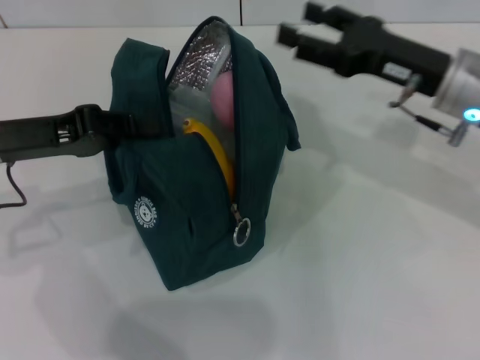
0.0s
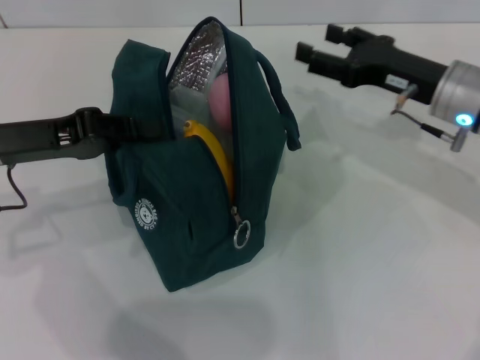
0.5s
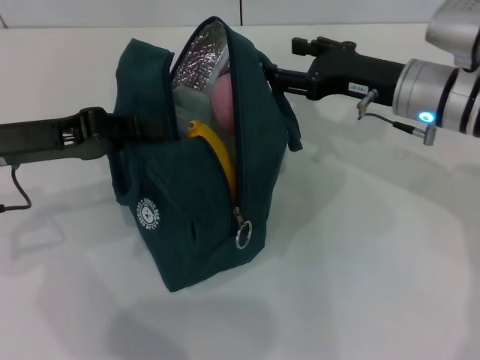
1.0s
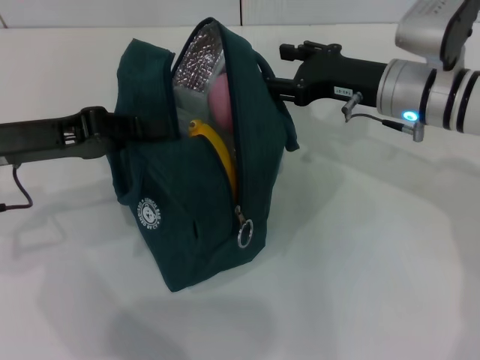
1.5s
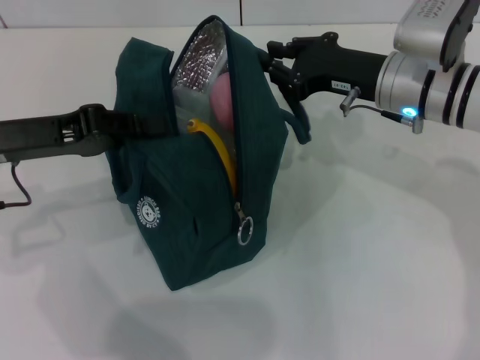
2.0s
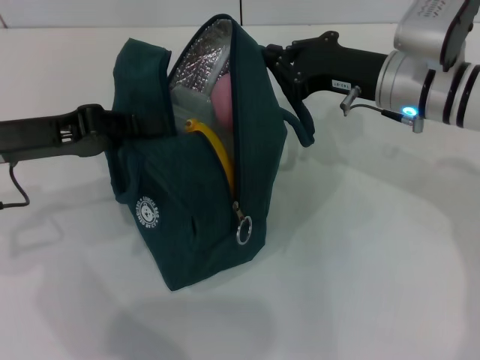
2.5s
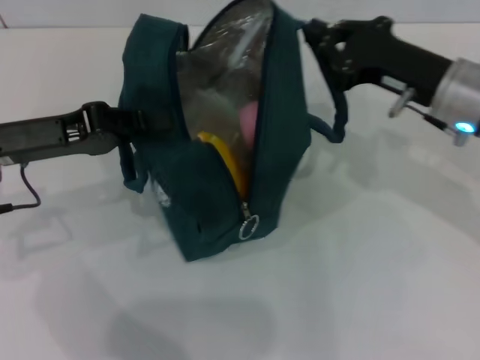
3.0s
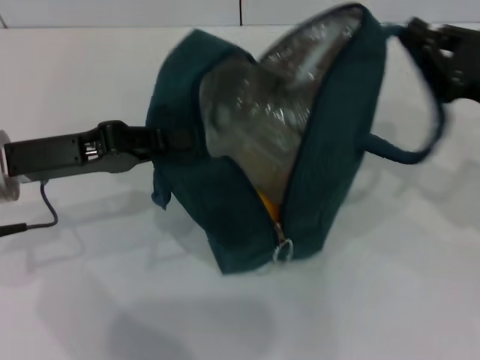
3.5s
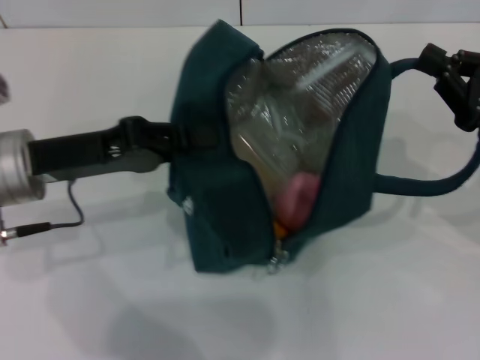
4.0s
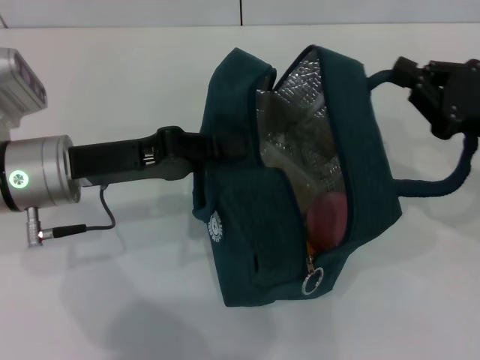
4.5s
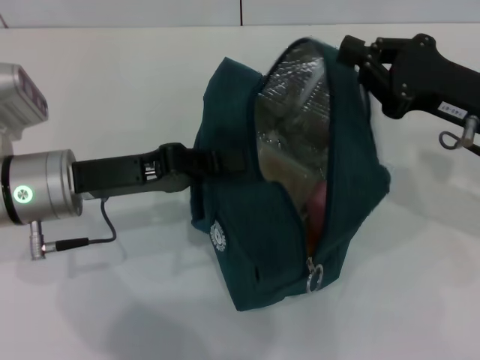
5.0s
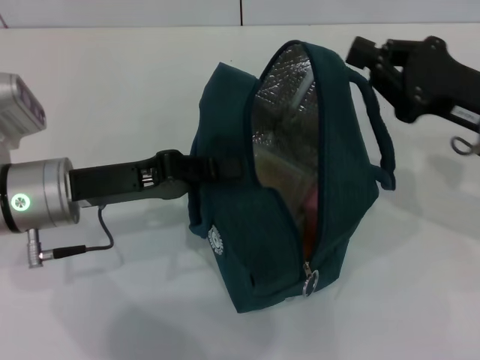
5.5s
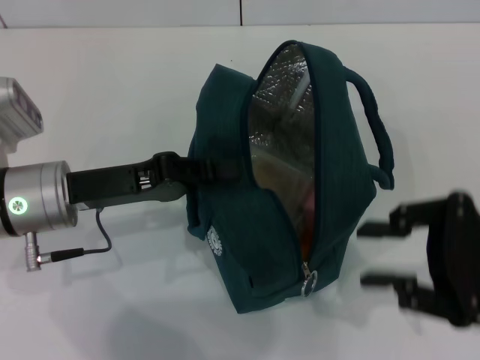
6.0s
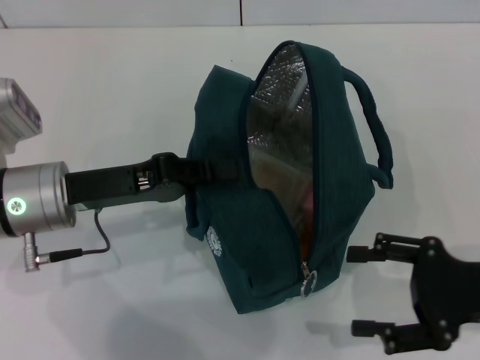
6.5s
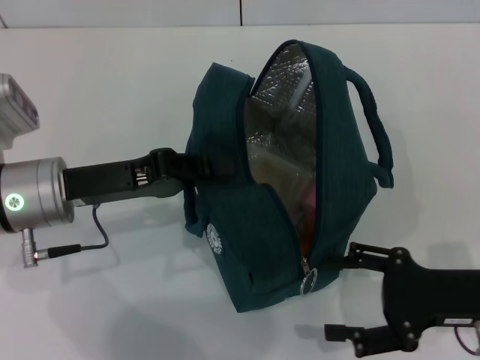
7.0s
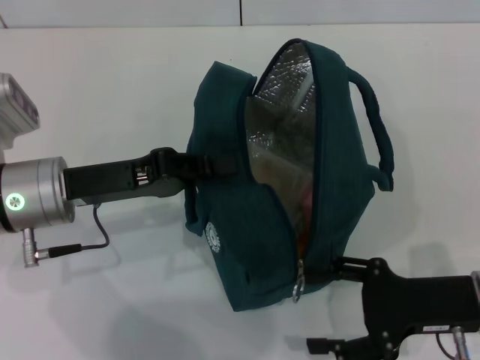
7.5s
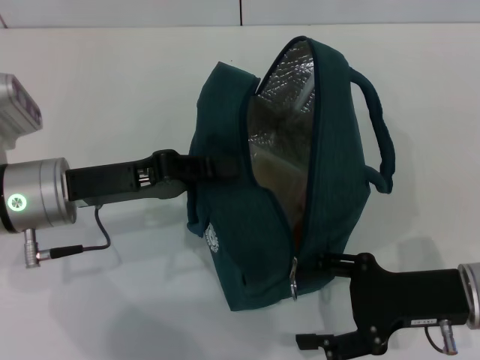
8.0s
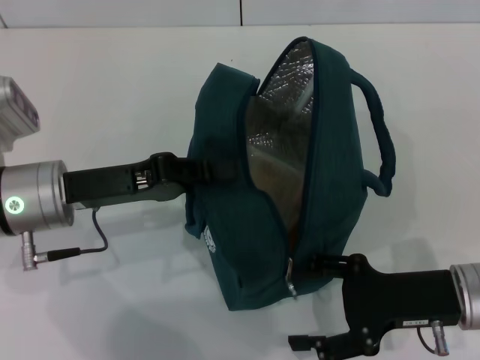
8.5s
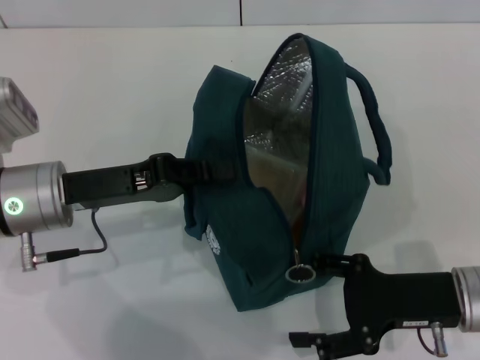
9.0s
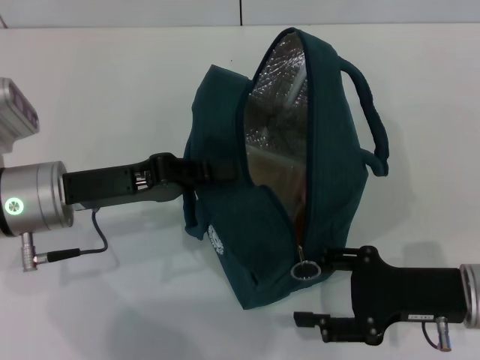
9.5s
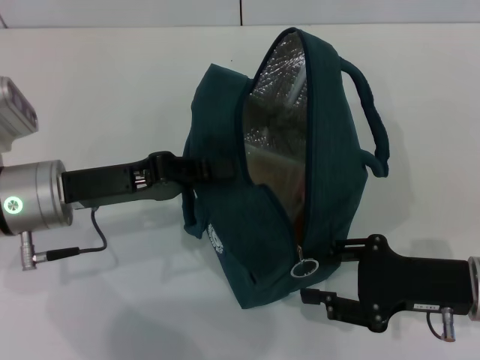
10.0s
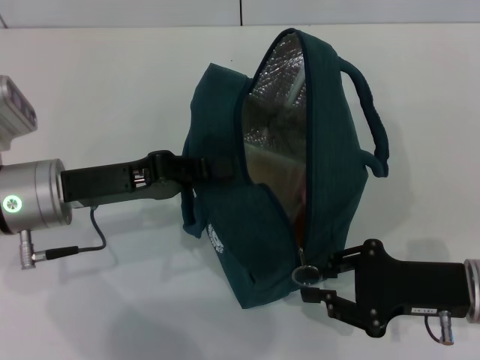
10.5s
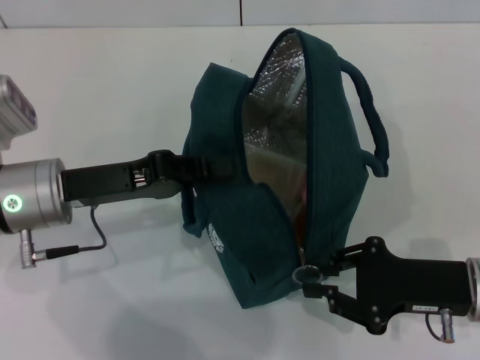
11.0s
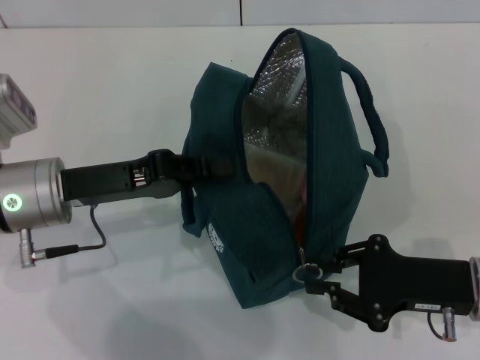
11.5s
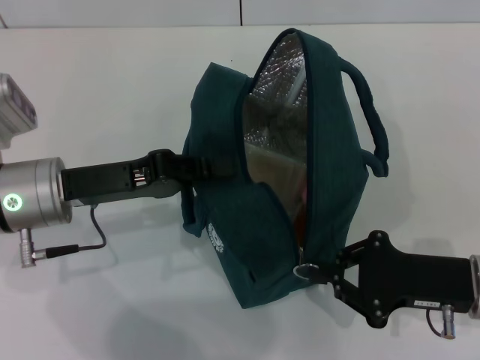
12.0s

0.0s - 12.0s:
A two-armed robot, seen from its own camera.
Step, 0.0s - 5.0s: Hold the lunch bag with your right hand.
0.0s - 2.0s: The right gripper shifts by roughly 5 cm, and closes its fingers.
2.0s - 4.0s: The right gripper travels to the right and backward by approximately 15 cm, and closes up.
4.0s - 6.0s: The right gripper moves backward, some 5 cm.
6.0s - 8.0s: The right gripper heads downward, covering some 5 cm, and opens up.
8.0s - 10.0s: The right gripper closes up.
10.0s - 12.0s: The right gripper closes up.

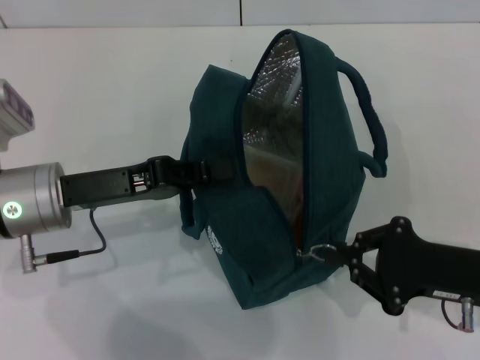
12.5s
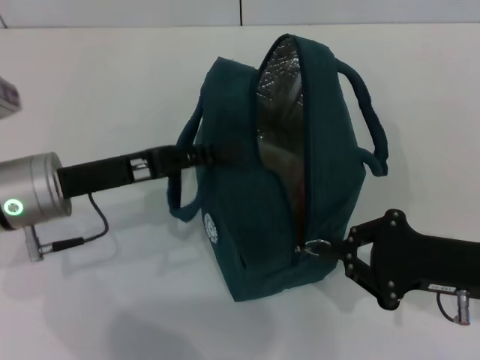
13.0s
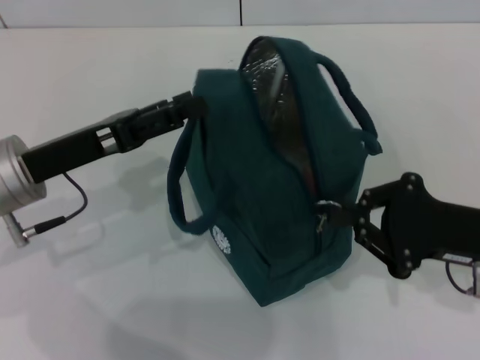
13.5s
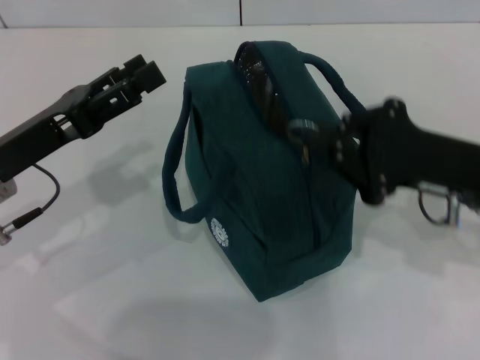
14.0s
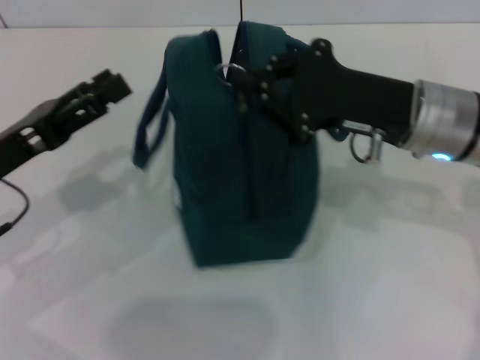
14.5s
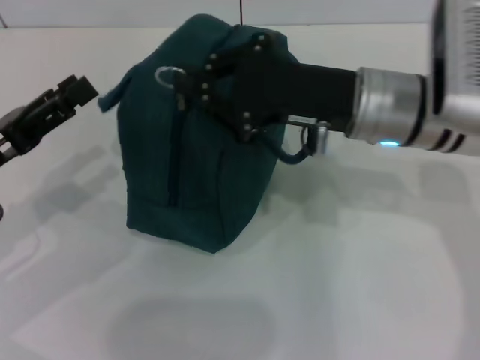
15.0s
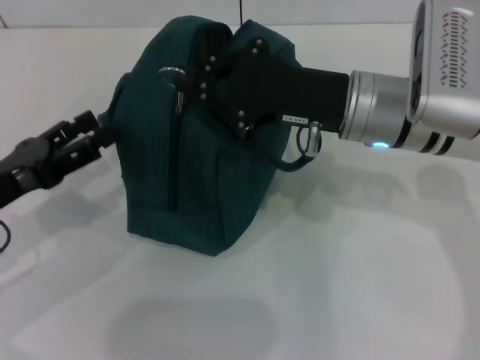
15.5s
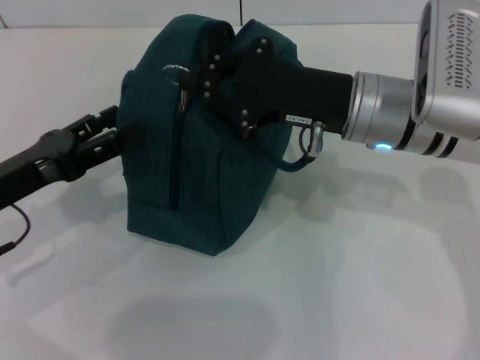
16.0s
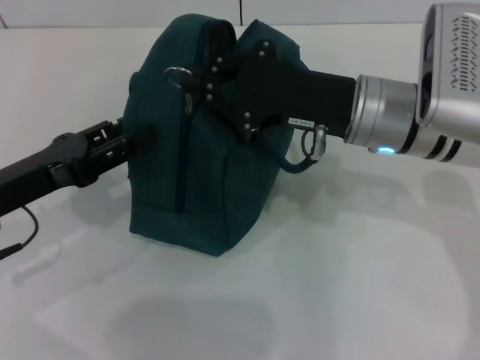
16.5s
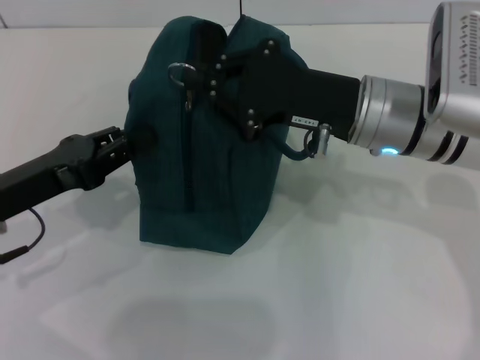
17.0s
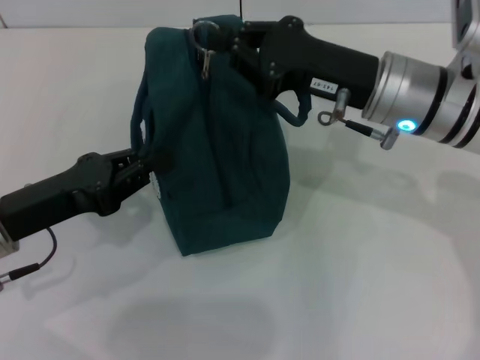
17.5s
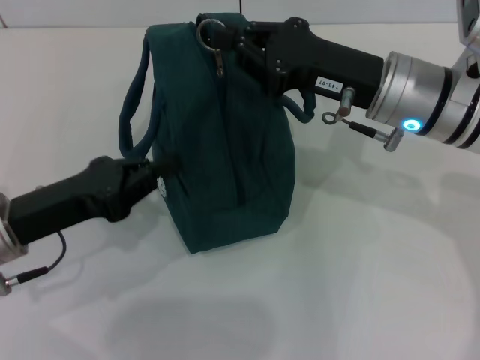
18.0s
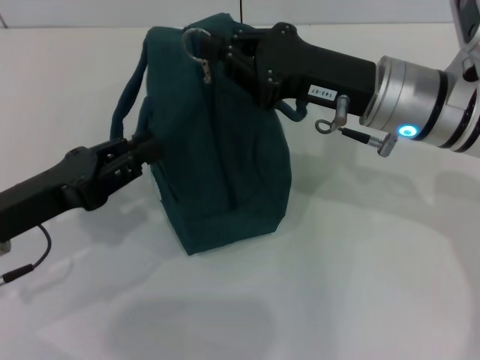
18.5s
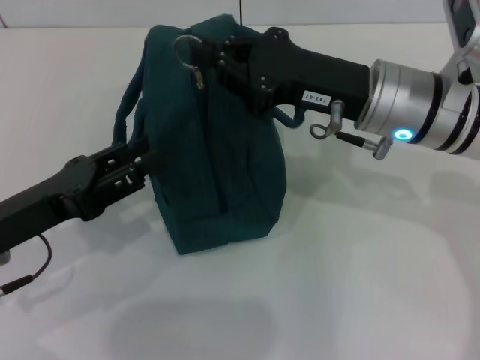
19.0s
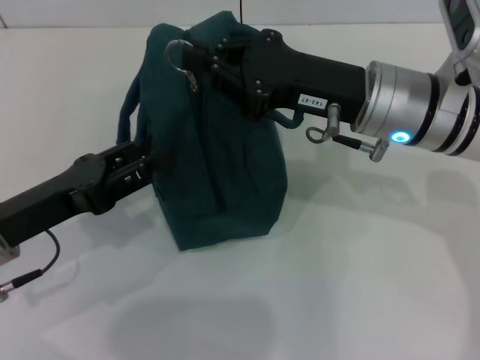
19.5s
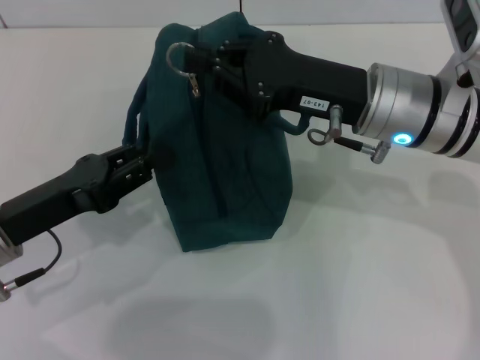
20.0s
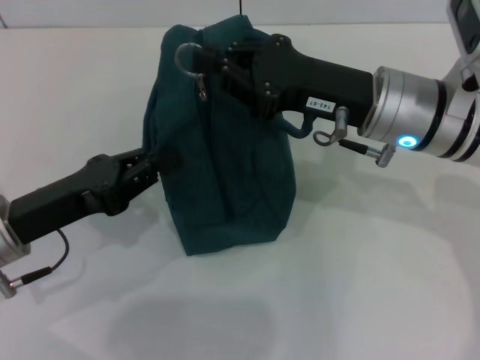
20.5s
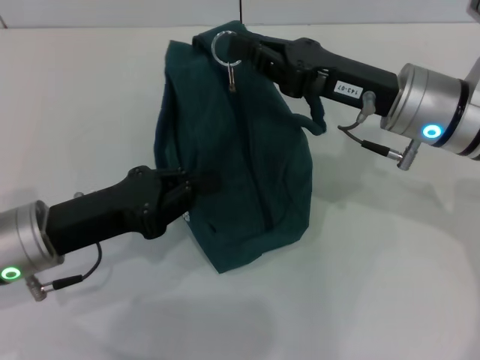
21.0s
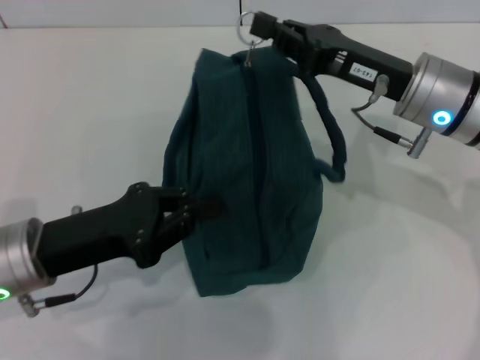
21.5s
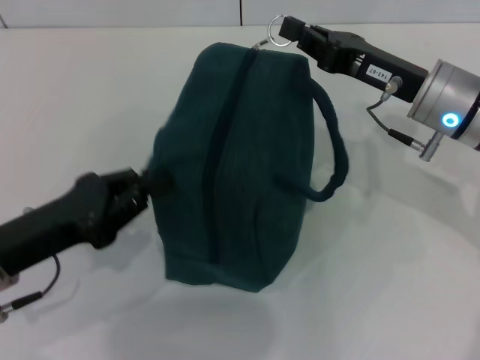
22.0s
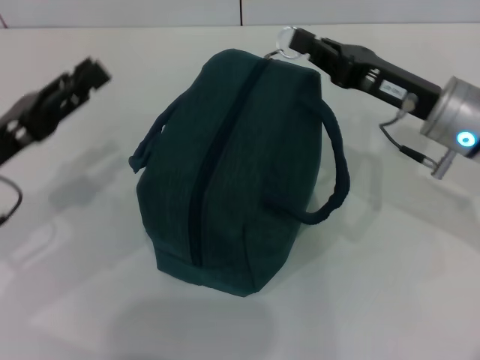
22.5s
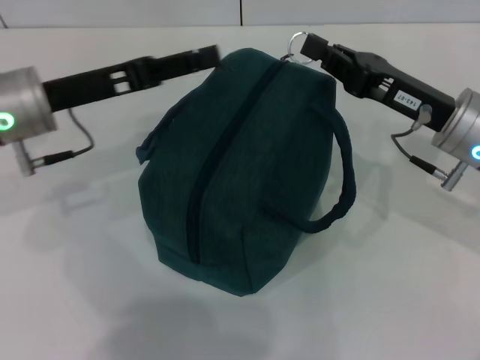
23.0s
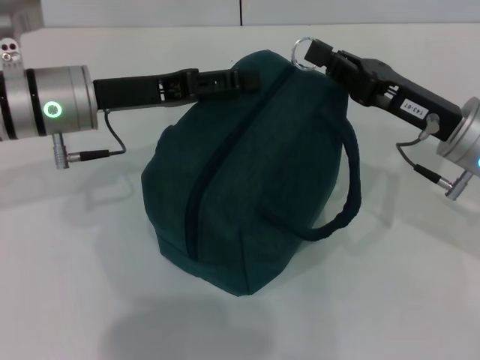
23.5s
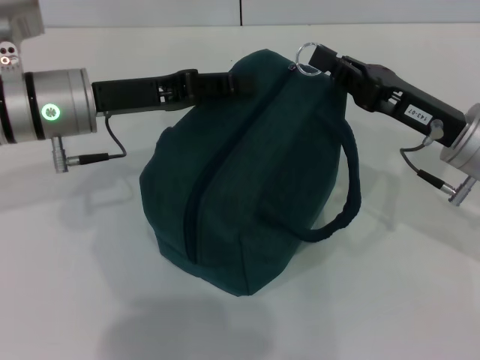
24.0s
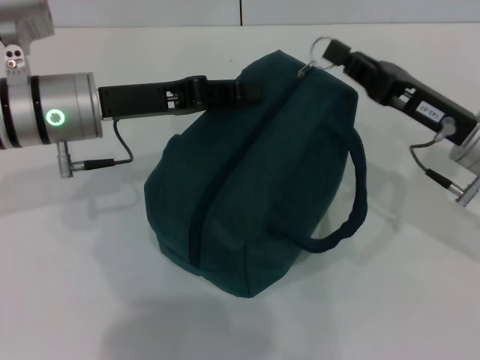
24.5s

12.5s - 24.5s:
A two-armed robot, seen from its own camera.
12.5s - 14.5s: The left gripper goes about 5 cm to the left, and opens. The right gripper is displaced forward, upward and to the left by roughly 15 cm.
16.5s - 18.5s: The left gripper closes.
18.5s - 20.5s: The left gripper opens and closes again.
20.5s - 22.5s: The right gripper moves to the right, approximately 5 cm. The left gripper opens up.
22.5s - 24.5s: The left gripper is displaced to the right and forward by about 15 cm, and opens and closes again.

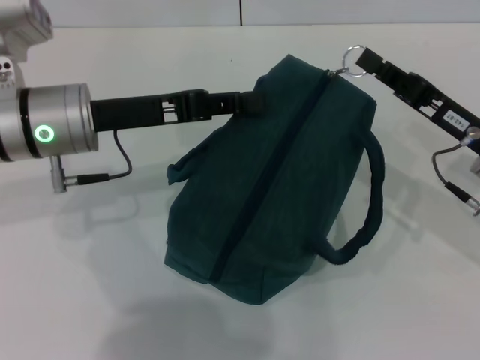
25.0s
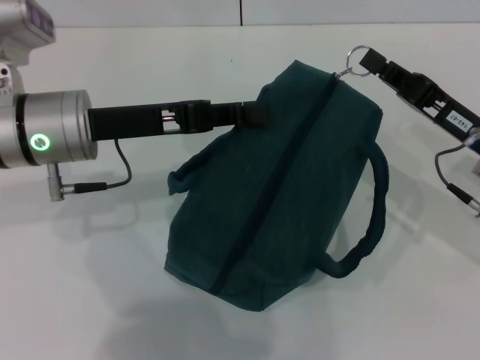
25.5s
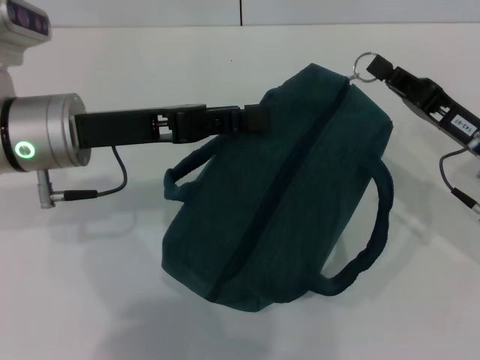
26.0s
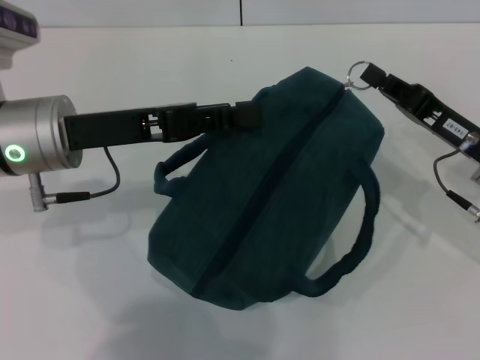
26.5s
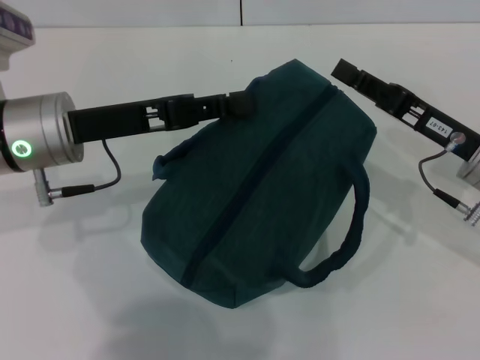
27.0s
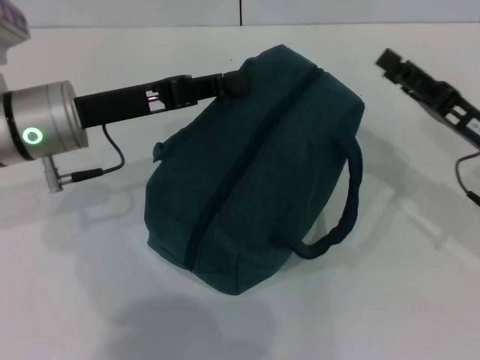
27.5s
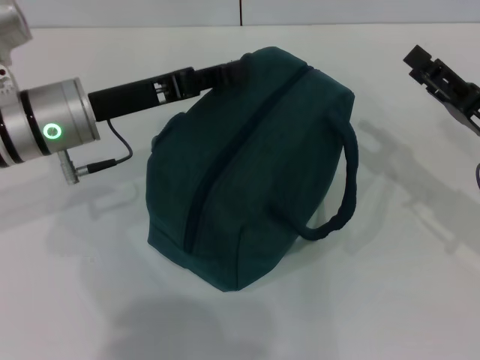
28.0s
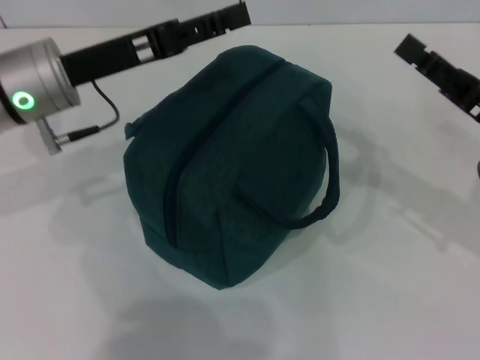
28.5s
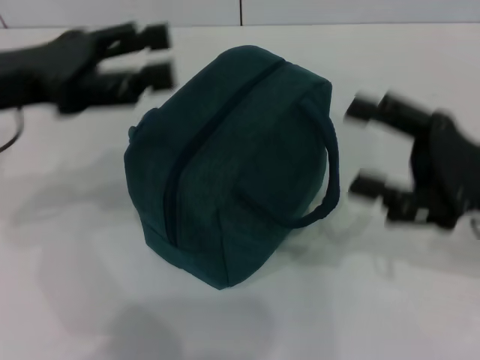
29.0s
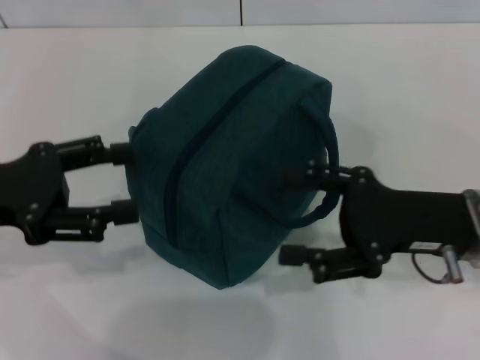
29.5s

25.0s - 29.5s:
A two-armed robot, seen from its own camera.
Step, 25.0s - 27.0s: Zip up the lunch bag with your right hand.
Step, 27.5s - 28.5s: Hold the lunch bag with your left hand.
25.0s - 27.0s: The grippers move only a little.
27.0s - 29.5s: The right gripper moves approximately 5 cm, and opens up. The left gripper travels to the left and backward by about 10 cm, and opens.
